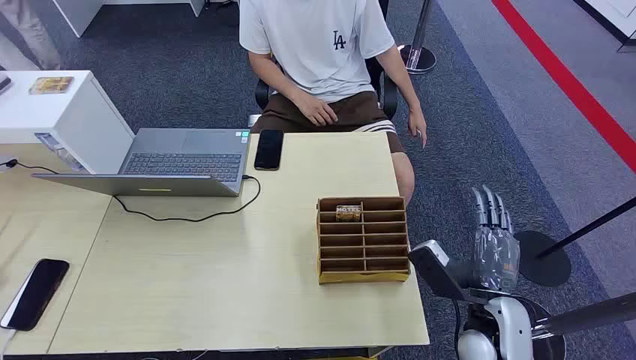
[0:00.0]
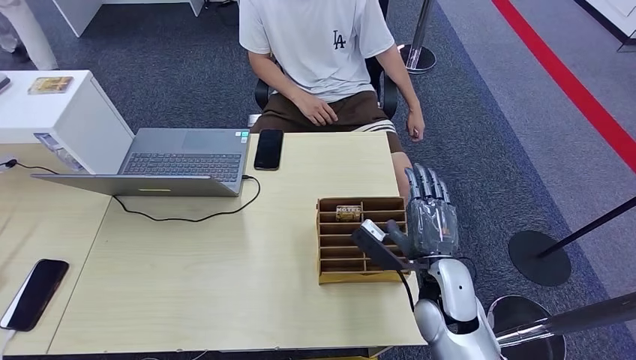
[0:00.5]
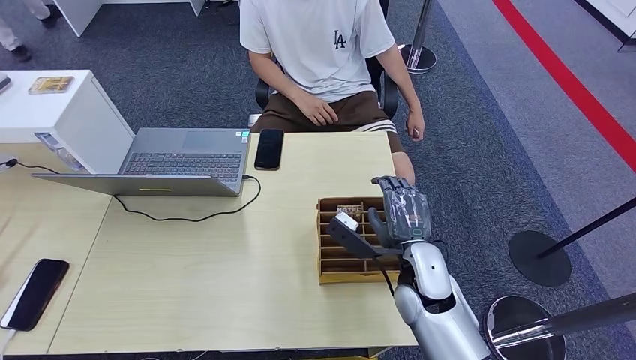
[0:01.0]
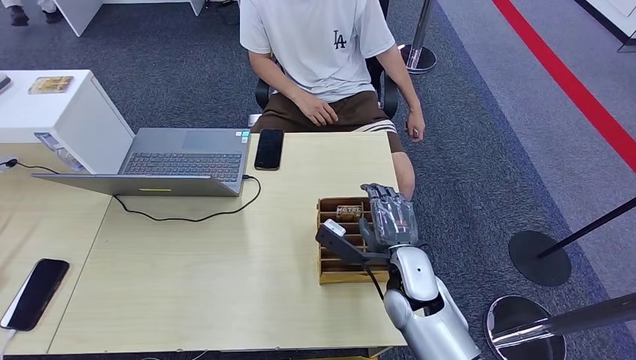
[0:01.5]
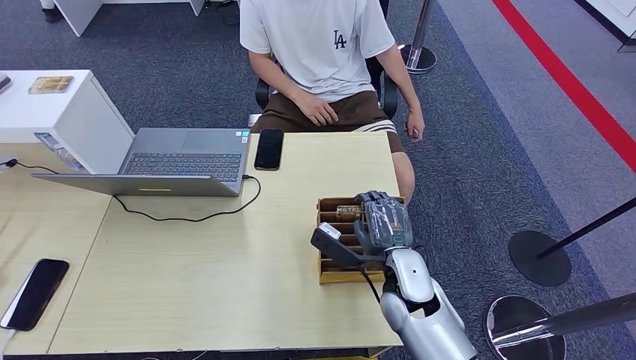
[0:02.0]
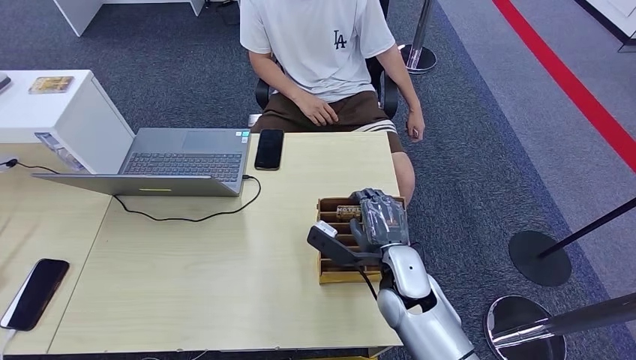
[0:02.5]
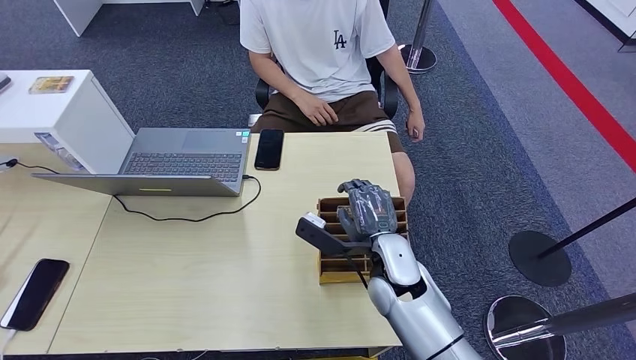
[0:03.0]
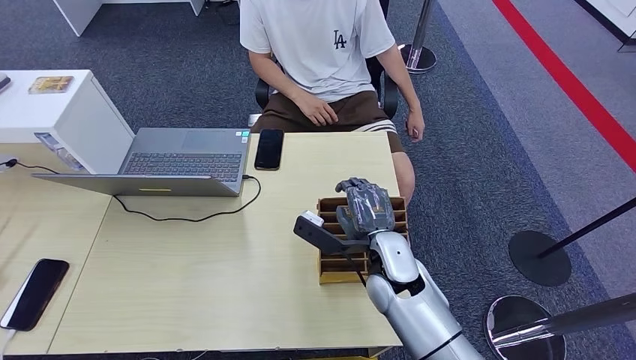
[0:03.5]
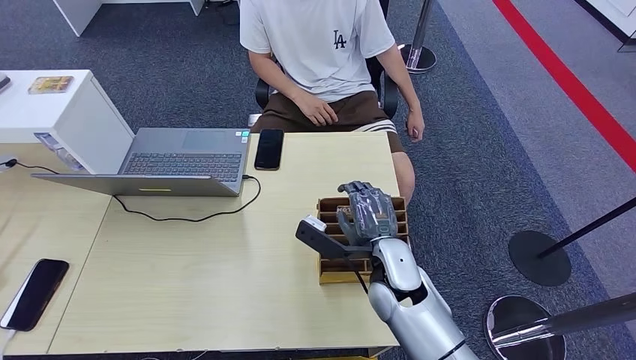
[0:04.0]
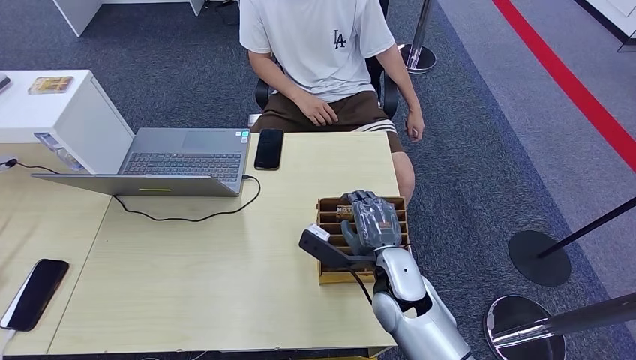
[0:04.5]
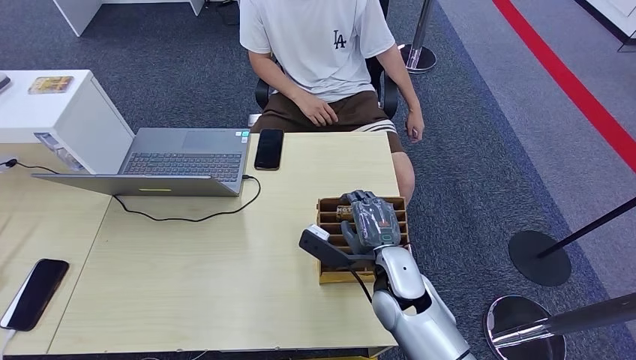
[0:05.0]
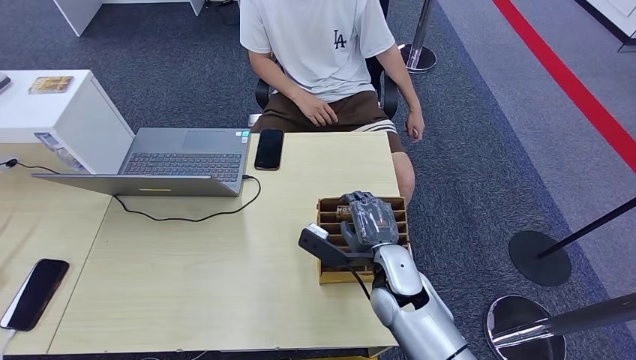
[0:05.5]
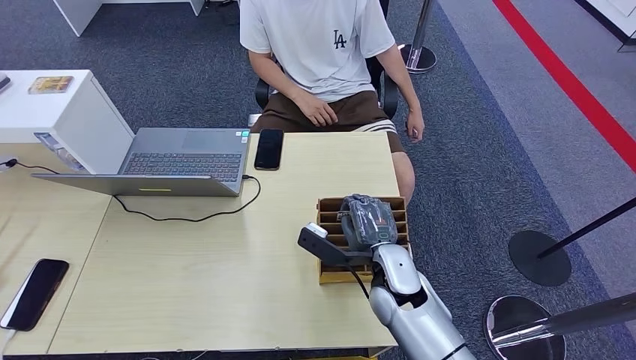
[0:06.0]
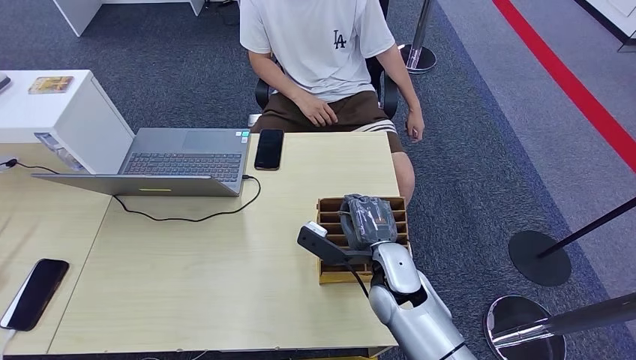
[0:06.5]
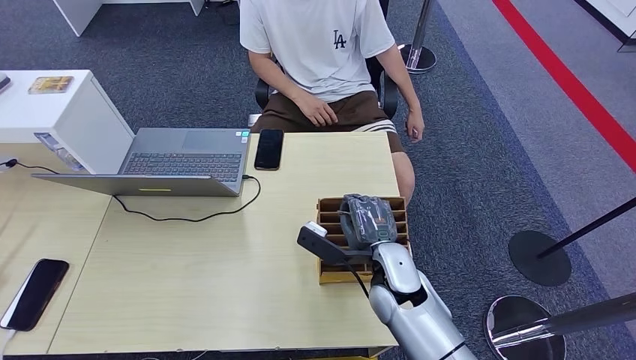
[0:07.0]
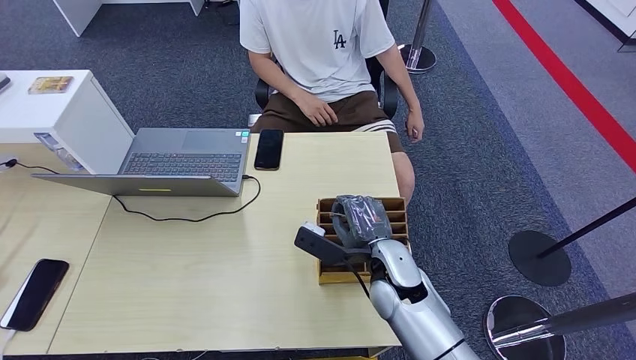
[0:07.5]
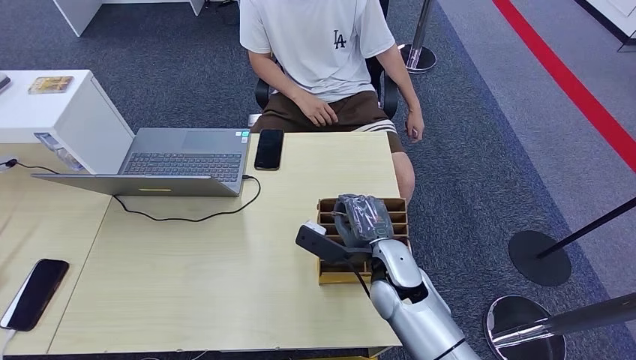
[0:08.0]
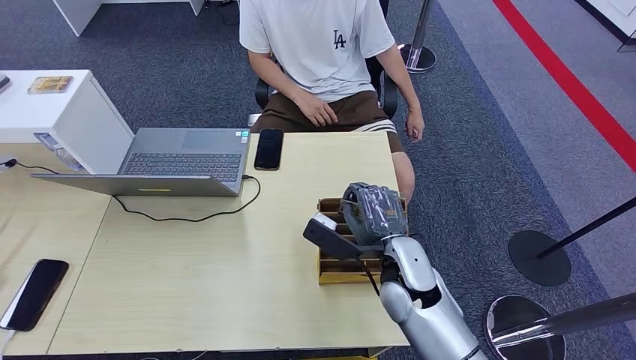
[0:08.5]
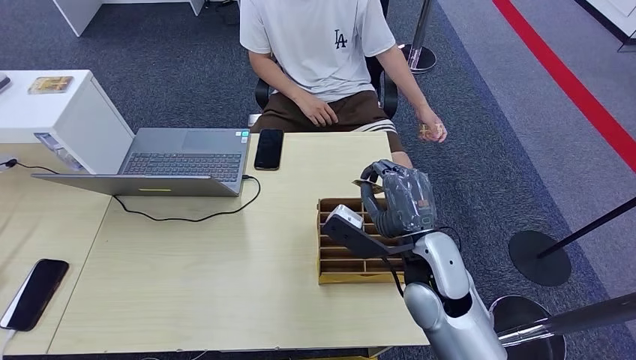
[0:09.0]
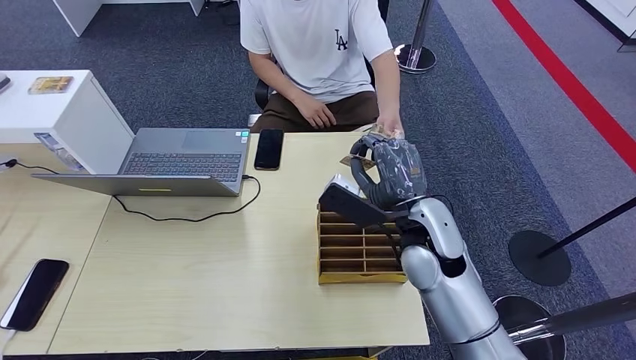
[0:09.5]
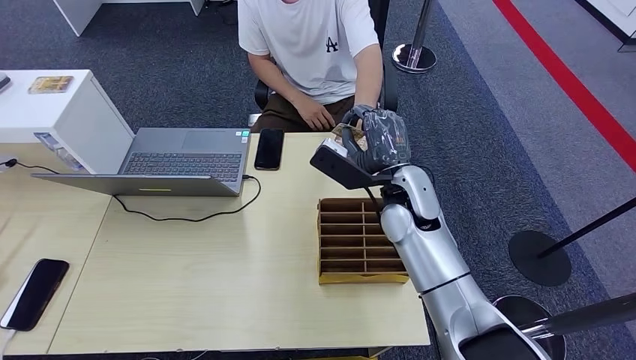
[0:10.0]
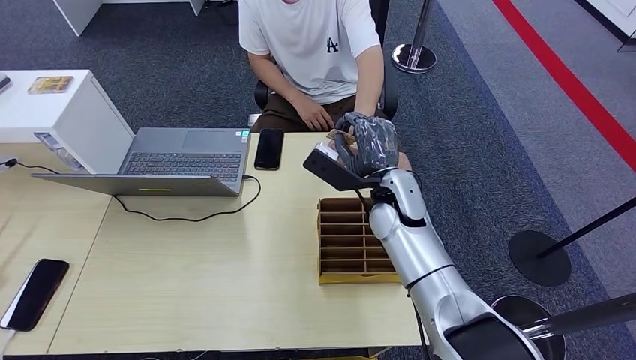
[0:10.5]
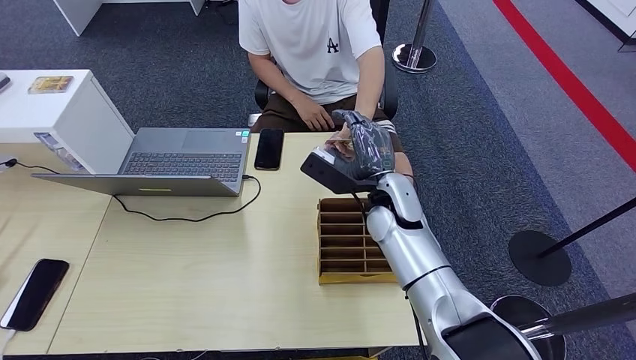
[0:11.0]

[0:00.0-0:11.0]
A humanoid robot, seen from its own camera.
Step, 0:00.0 to 0:09.0: Pick up the room card from the card holder.
Step, 0:09.5 to 0:11.0: Hand the room card to the target.
0:02.0 to 0:07.5: The hands stay close to where they were, moving slightly.
0:07.5 to 0:09.0: The right hand travels upward by about 10 cm.
0:09.0 to 0:11.0: The right hand travels forward by about 15 cm.
